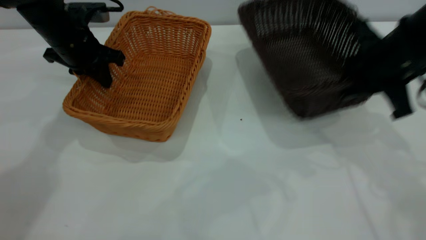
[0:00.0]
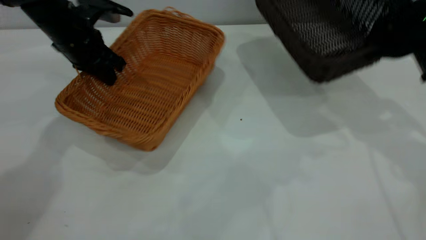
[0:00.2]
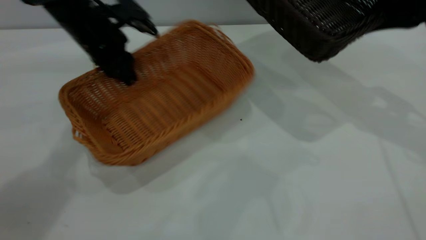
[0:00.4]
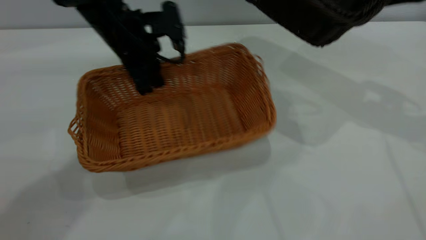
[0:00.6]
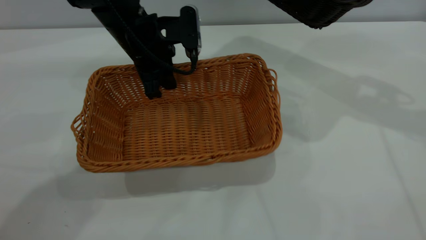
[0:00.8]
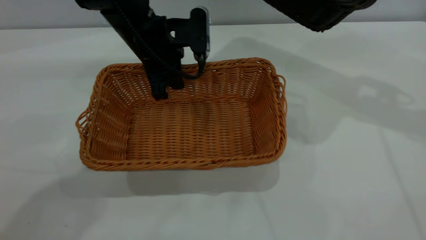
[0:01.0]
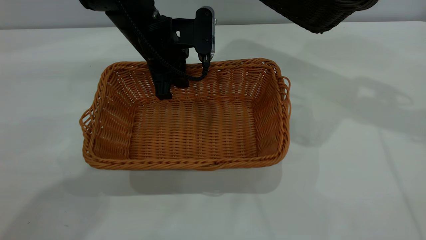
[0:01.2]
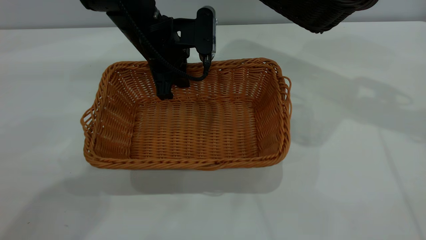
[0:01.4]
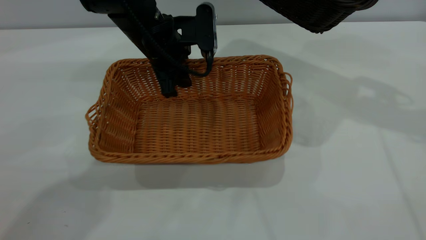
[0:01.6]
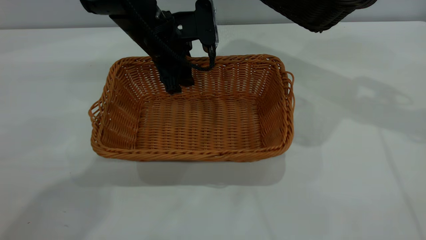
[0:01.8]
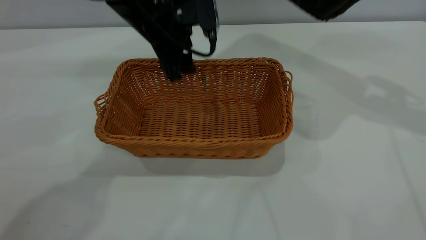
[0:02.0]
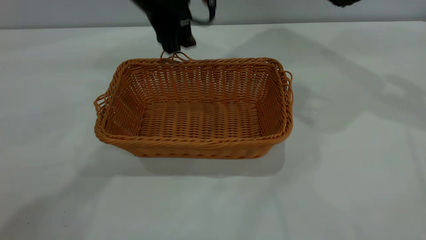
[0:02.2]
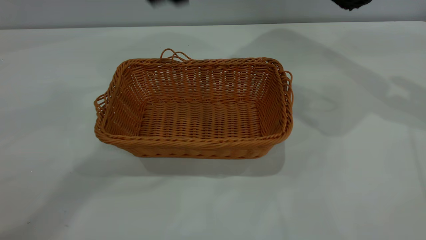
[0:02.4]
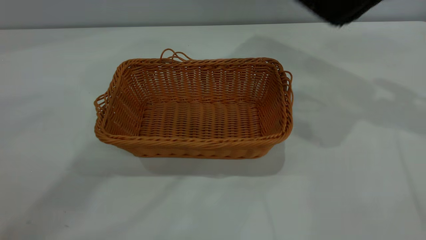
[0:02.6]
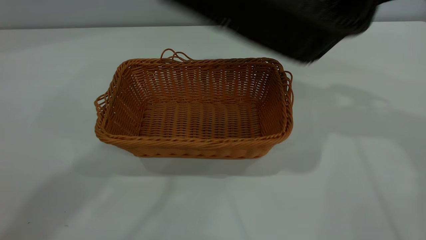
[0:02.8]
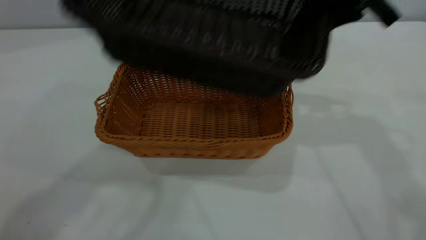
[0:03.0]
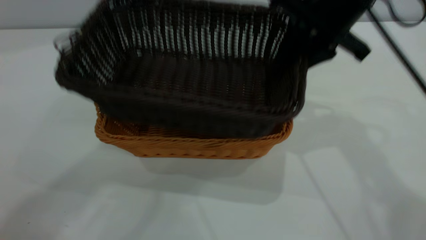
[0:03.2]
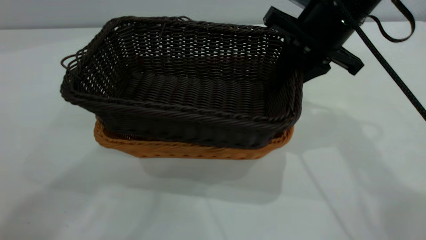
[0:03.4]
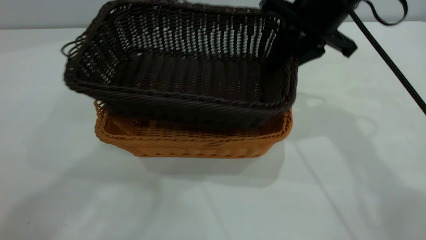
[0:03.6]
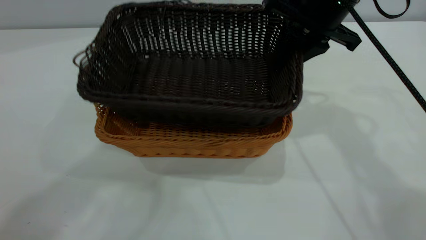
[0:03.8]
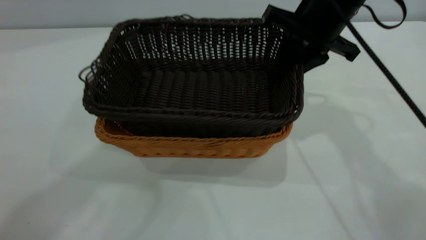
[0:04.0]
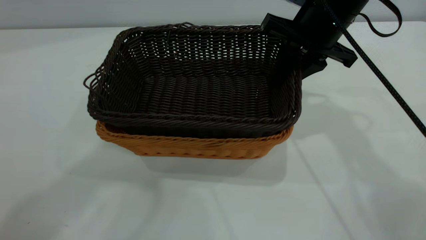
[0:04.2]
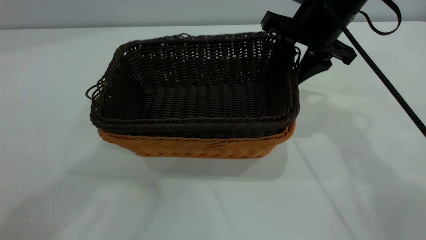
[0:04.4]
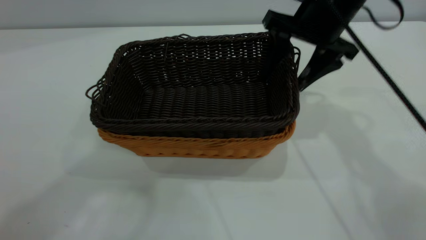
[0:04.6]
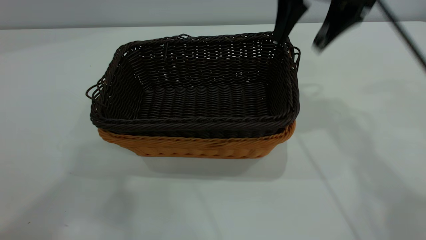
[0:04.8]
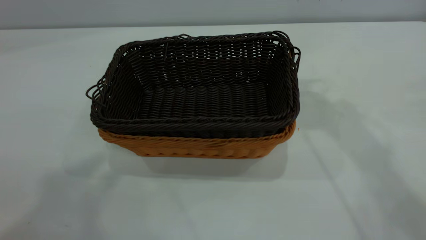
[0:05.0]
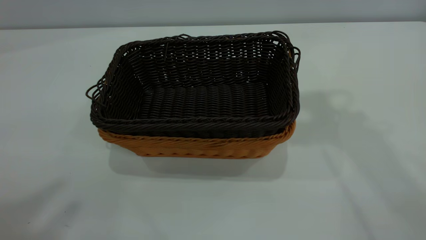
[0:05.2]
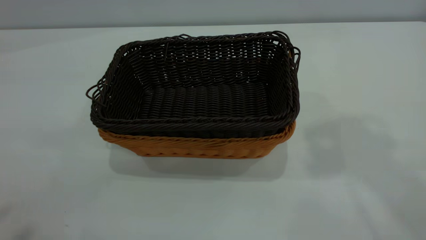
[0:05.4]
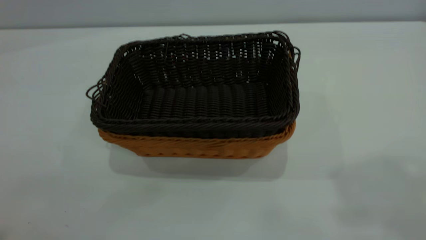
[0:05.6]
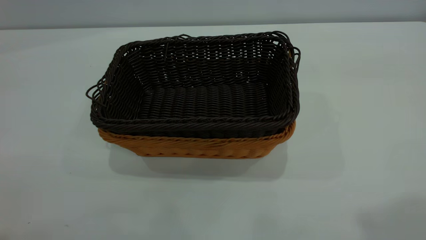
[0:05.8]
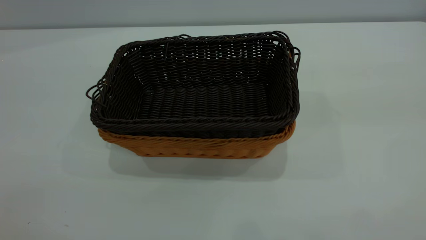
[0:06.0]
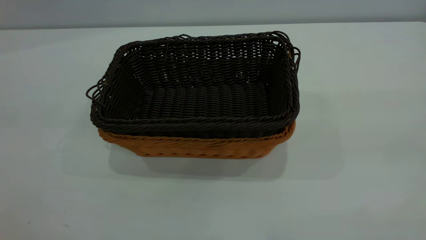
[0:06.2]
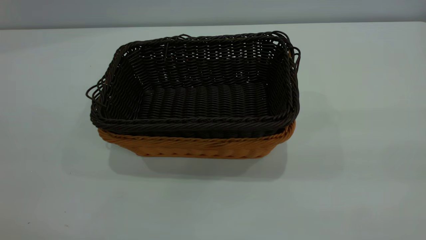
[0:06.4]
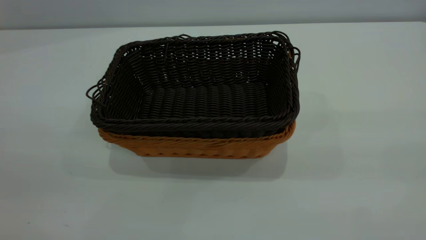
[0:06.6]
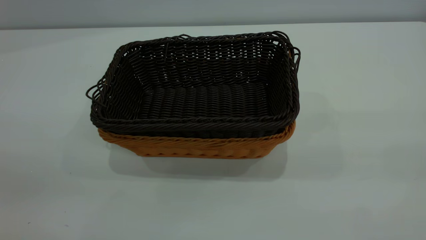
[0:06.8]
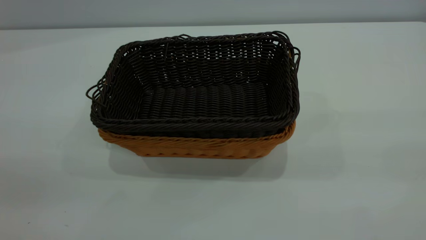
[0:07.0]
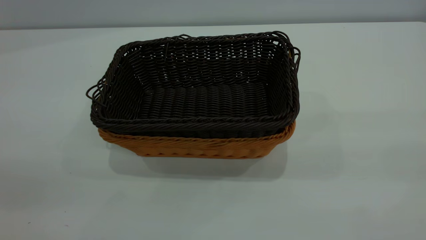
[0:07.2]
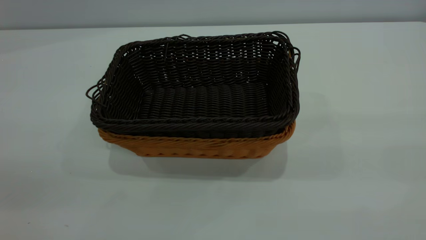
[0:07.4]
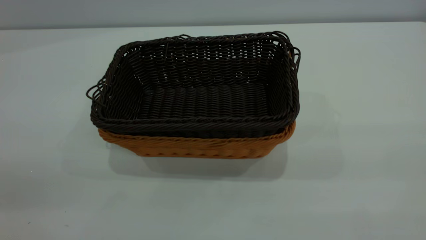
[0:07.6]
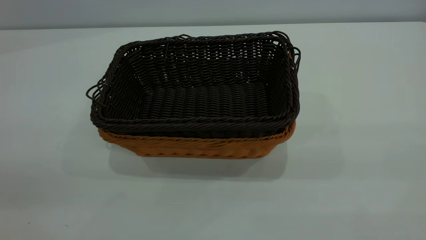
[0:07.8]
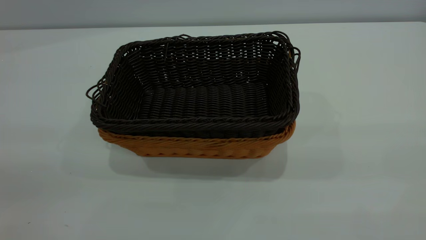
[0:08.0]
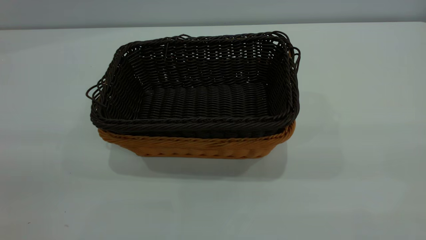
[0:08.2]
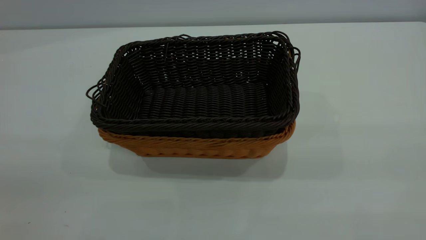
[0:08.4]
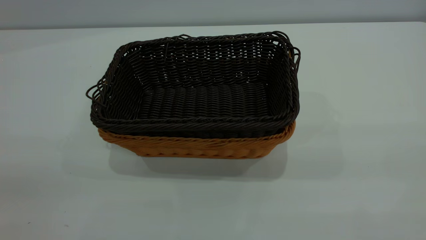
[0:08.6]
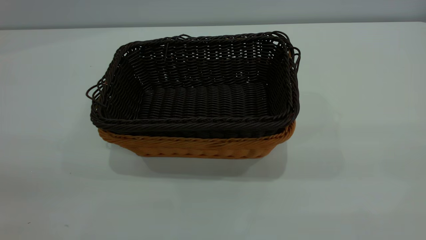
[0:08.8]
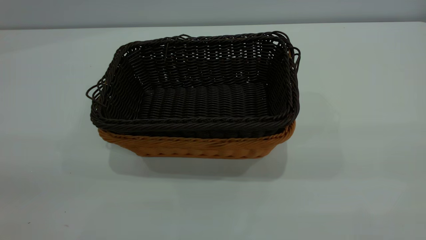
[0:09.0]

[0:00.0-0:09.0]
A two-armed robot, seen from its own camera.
Task of the whole recording: the left gripper grasp the brown basket and place it in the center of the table, the right gripper grasp the black basket and place it inside the brown one.
Step, 0:00.2 to 0:01.8: Place the light-colored basket in the center.
Step, 0:02.2 to 0:04.8: Place the dark basket on top of the light basket.
0:00.0 to 0:01.6: The left gripper travels to the right by roughly 15 cm, and opens. The right gripper goes approximately 15 cm upward and forward.
0:01.6 to 0:03.0: The right gripper heads to the left, covering some 10 cm, while the left gripper travels upward by about 40 cm.
0:03.0 to 0:04.4: The right gripper travels downward by some 5 cm, and opens up.
0:04.4 to 0:06.0: The left gripper shifts about 20 cm backward and to the left. The right gripper heads backward and upward, covering about 40 cm, and opens its fingers.

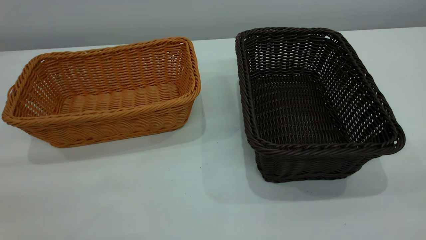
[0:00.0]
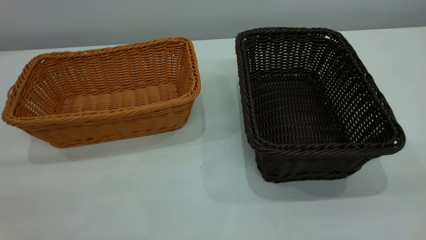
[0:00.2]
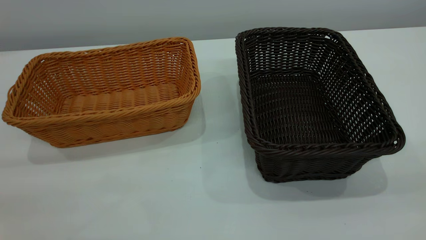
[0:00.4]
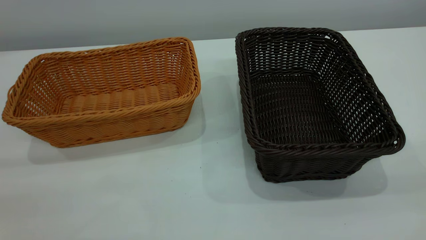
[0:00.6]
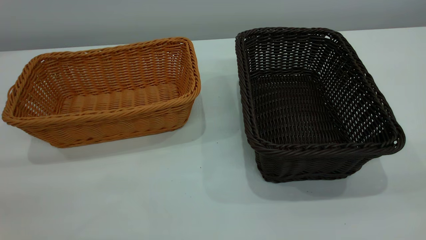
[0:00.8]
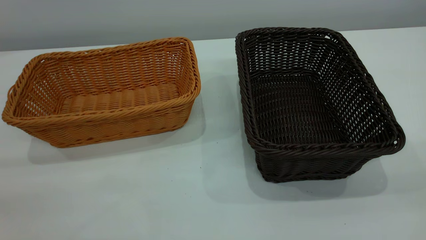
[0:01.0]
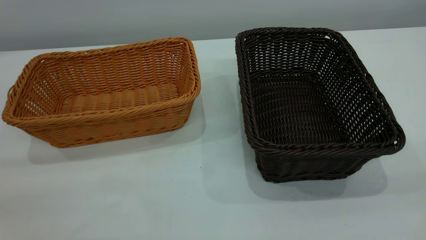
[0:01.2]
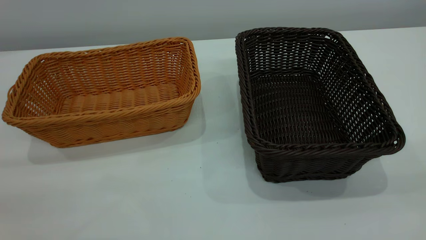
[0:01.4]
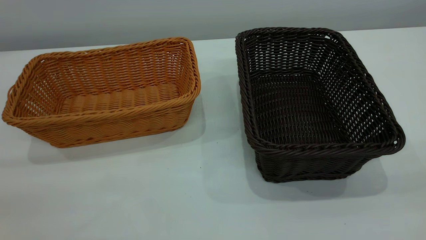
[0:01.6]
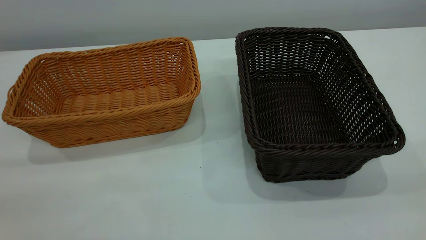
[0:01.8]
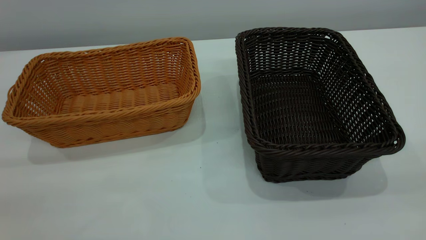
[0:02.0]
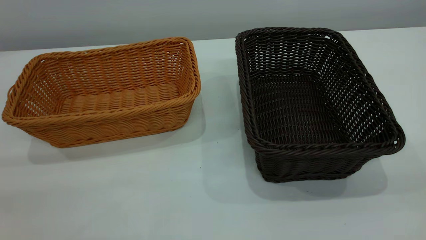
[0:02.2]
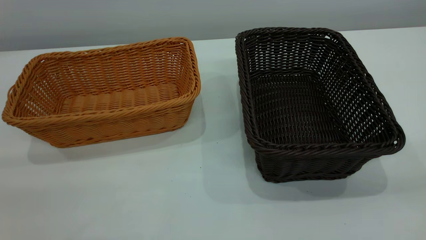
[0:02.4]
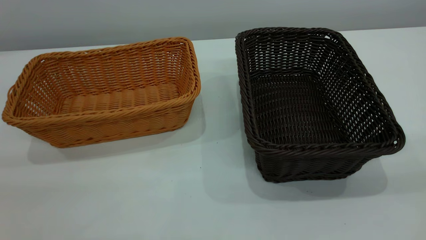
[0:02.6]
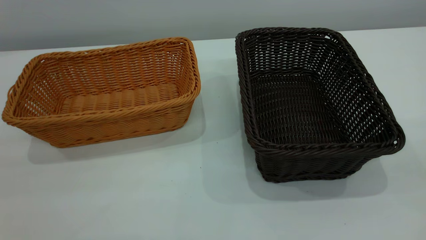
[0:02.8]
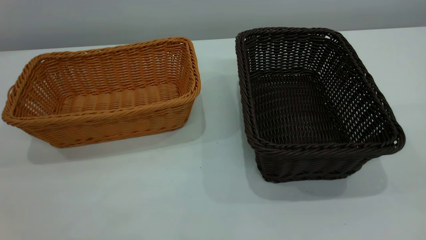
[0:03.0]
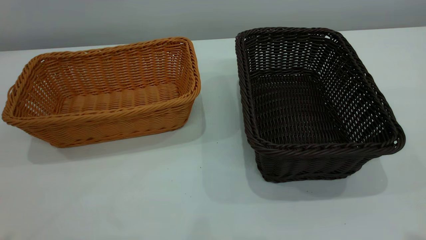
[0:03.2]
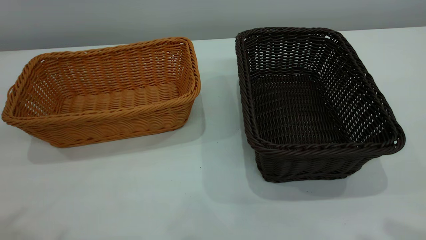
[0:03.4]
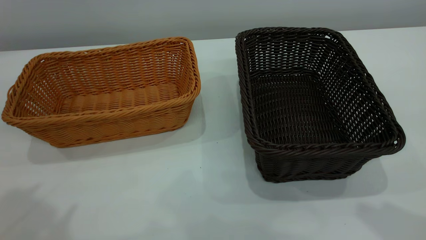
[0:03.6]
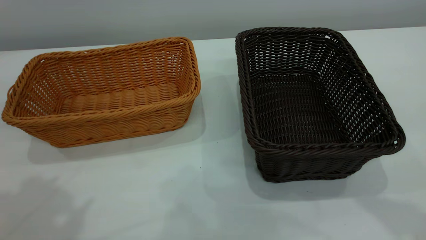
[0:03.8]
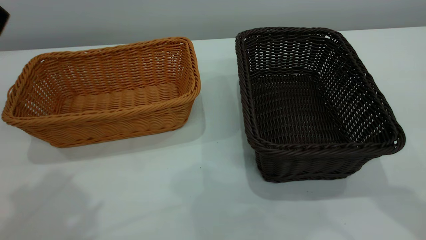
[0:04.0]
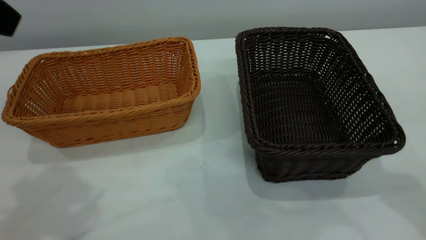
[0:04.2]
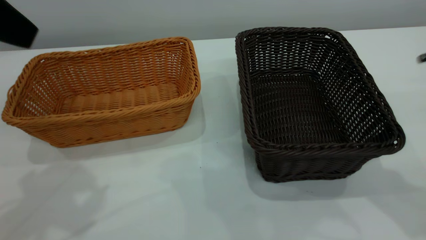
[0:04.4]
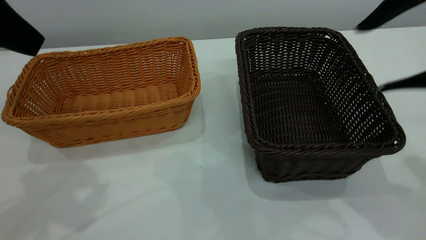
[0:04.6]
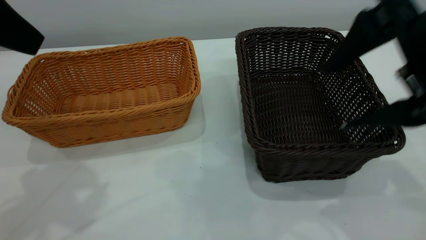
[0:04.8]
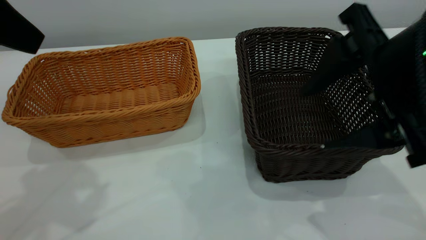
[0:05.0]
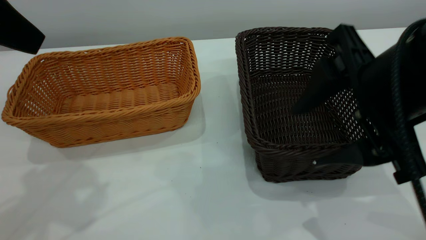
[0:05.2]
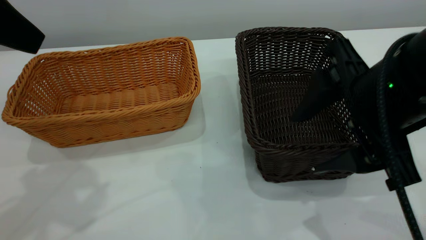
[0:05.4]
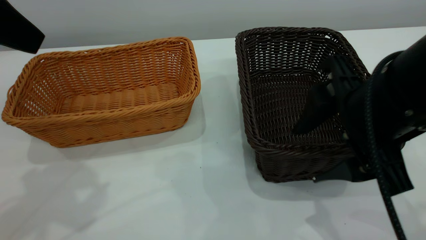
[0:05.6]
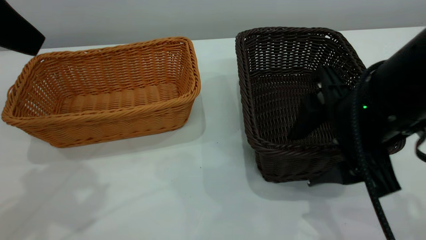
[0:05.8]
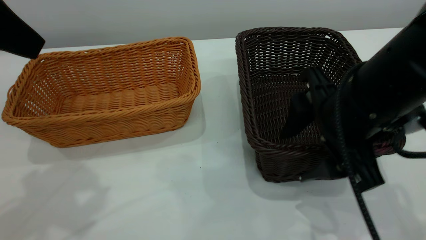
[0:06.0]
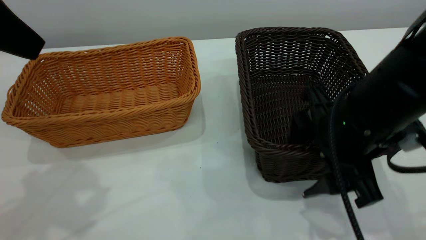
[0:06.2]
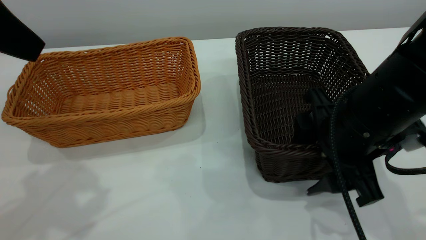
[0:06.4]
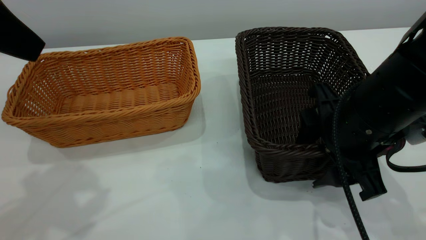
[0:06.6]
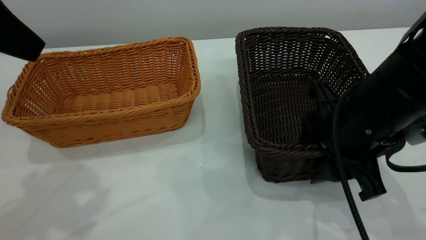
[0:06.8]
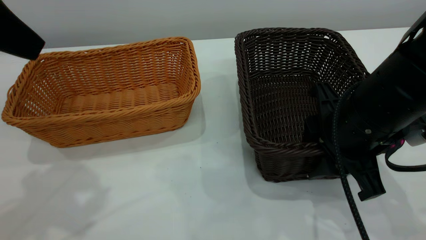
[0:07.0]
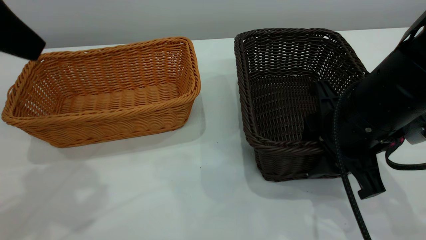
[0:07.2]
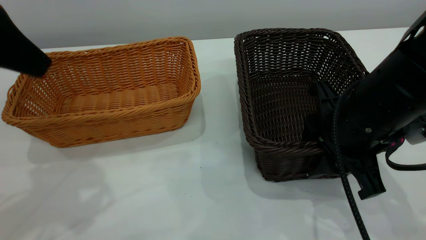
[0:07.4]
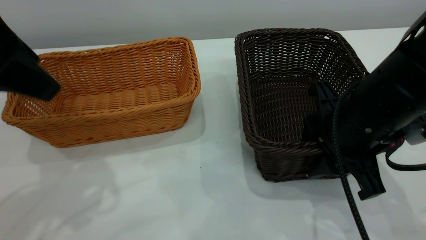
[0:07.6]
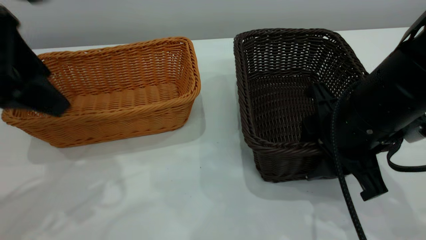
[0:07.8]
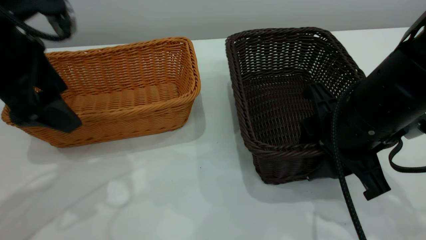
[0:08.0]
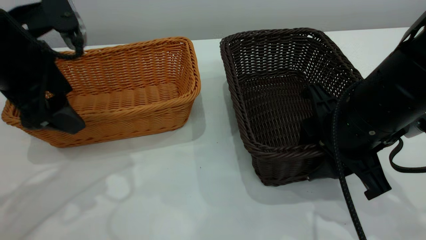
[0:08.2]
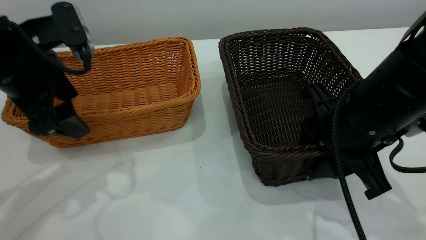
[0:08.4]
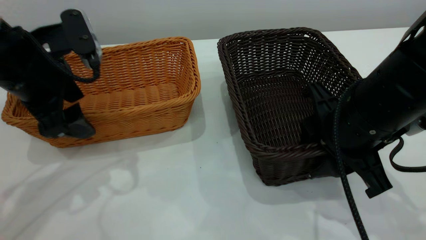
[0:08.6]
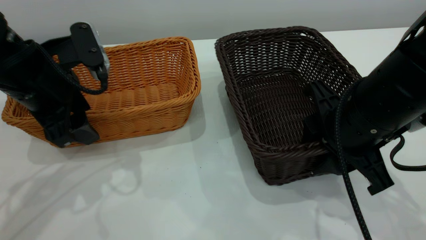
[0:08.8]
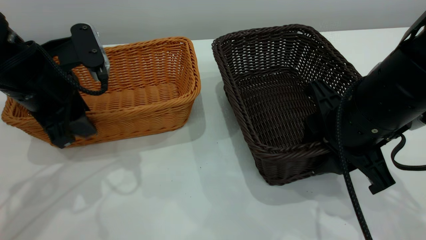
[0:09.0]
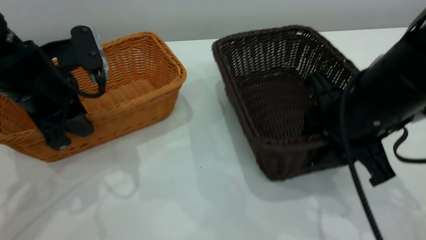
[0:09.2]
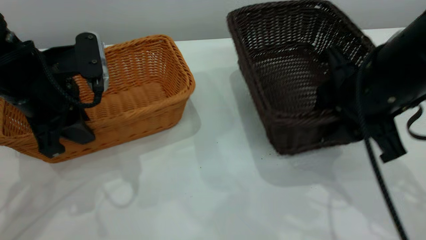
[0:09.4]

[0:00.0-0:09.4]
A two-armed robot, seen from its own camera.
Task of the whole recording: the left gripper grasp the brown basket and place it in the center of the table, the right gripper grasp the black basket and place it inside the brown one.
0:00.0 to 0:01.6: Both grippers stay put.
0:03.2 to 0:04.8: The right gripper travels downward, forward and to the left by approximately 20 cm; the left gripper heads forward and downward, covering approximately 15 cm.
0:04.8 to 0:06.2: The right gripper is displaced downward by about 10 cm.
0:06.2 to 0:07.8: The left gripper heads downward, covering about 5 cm.
0:07.8 to 0:09.4: The left gripper heads downward, covering approximately 10 cm, and closes its fingers.
